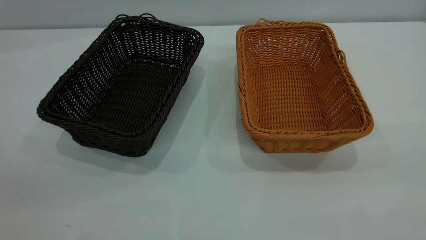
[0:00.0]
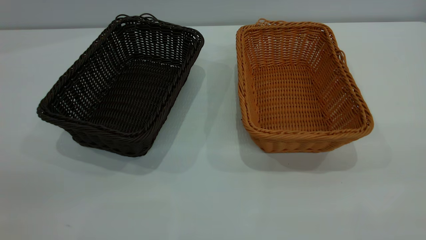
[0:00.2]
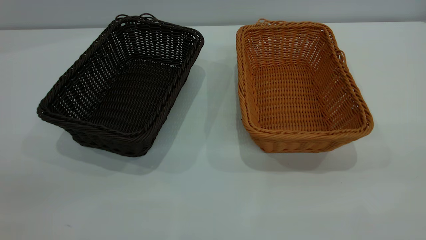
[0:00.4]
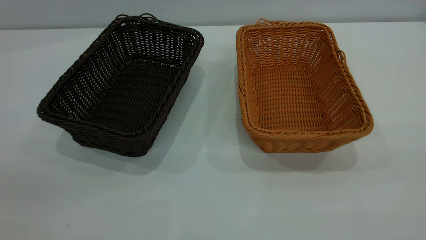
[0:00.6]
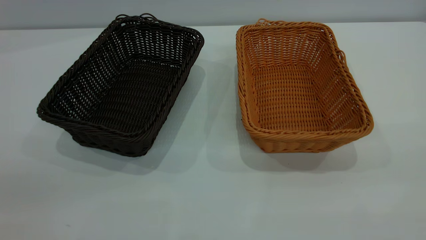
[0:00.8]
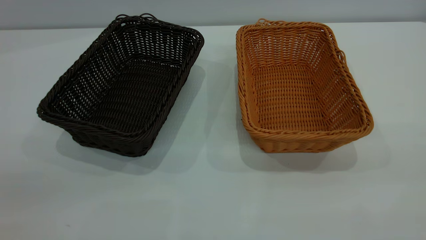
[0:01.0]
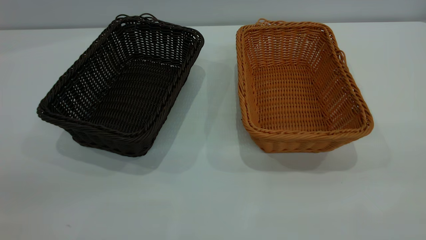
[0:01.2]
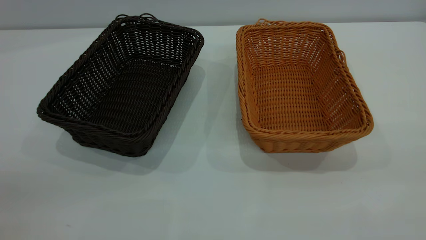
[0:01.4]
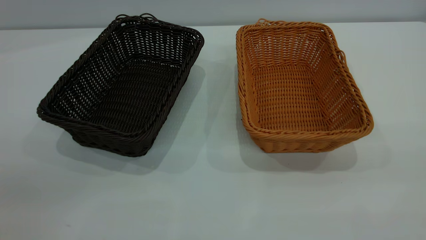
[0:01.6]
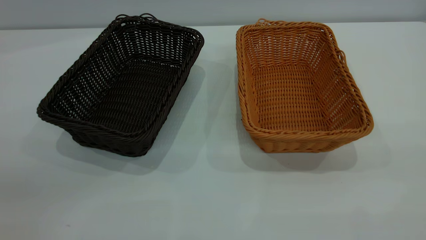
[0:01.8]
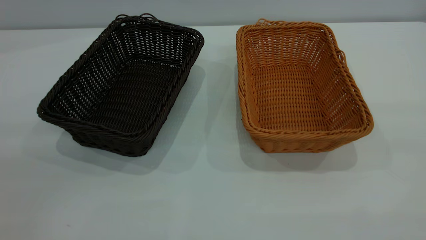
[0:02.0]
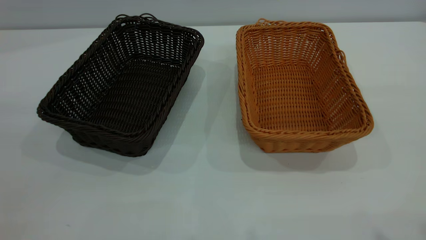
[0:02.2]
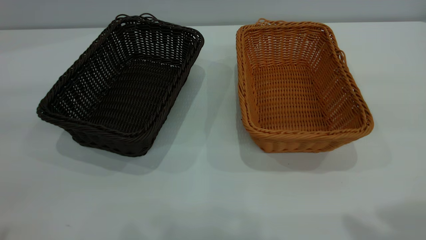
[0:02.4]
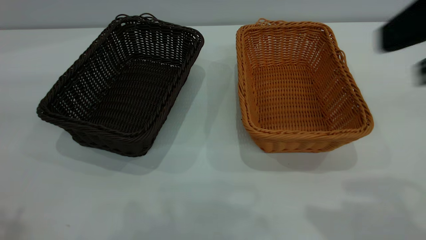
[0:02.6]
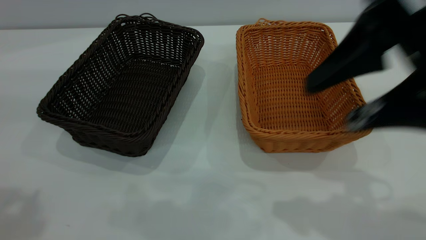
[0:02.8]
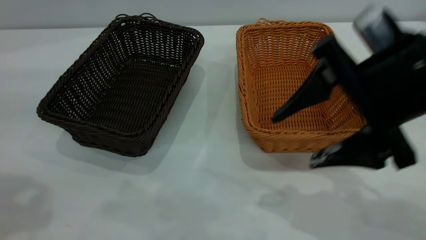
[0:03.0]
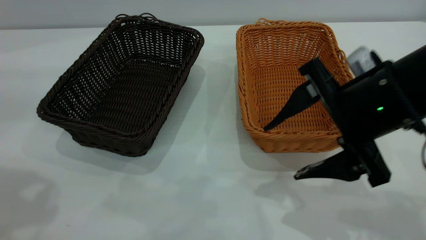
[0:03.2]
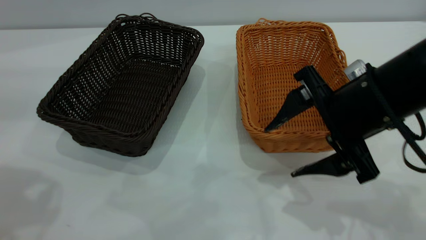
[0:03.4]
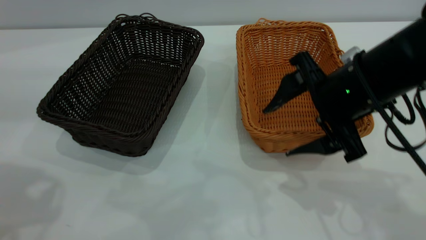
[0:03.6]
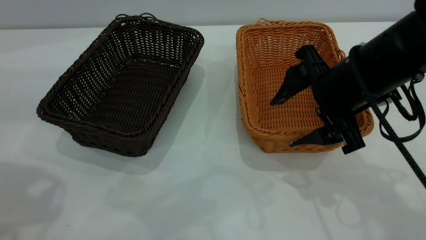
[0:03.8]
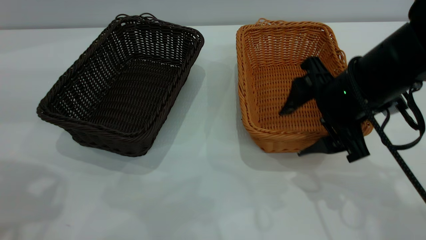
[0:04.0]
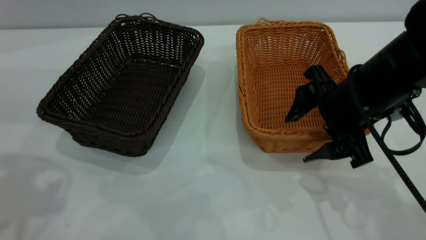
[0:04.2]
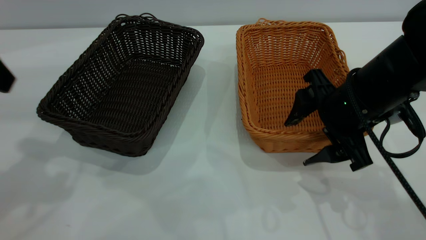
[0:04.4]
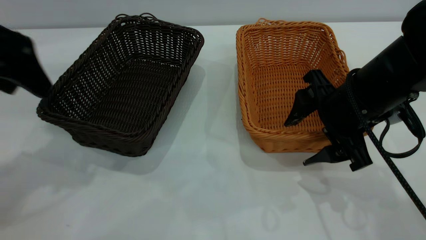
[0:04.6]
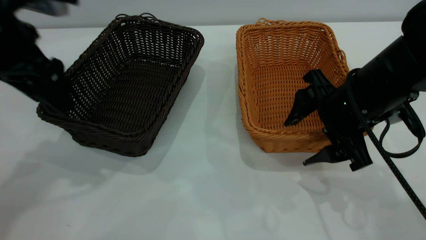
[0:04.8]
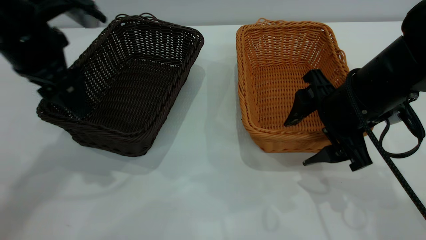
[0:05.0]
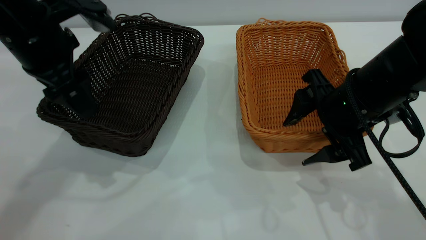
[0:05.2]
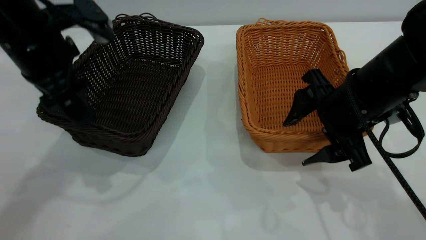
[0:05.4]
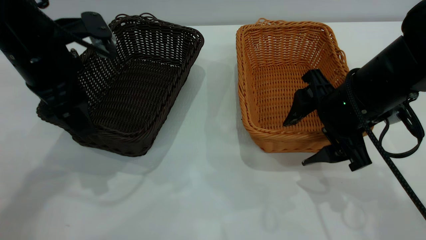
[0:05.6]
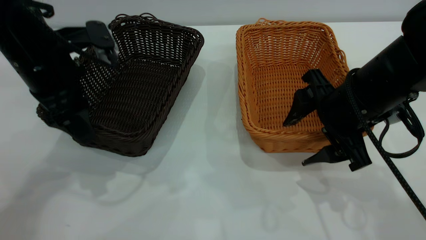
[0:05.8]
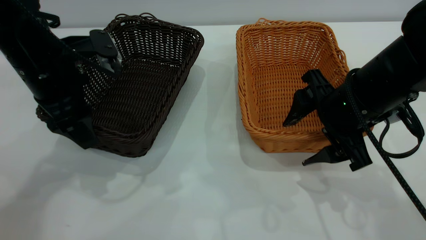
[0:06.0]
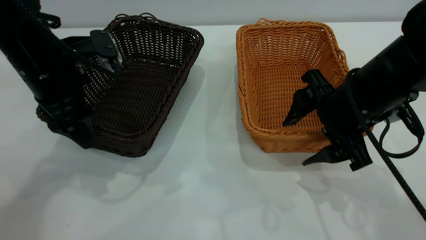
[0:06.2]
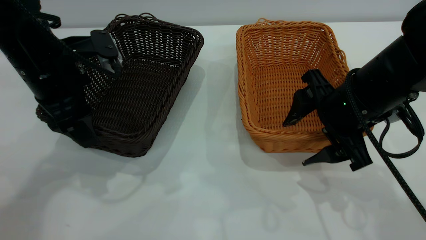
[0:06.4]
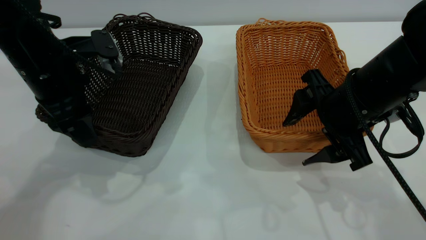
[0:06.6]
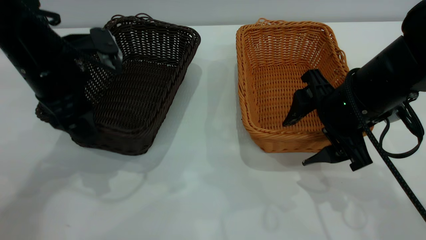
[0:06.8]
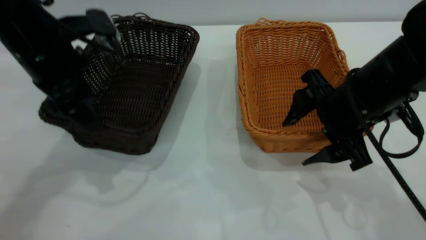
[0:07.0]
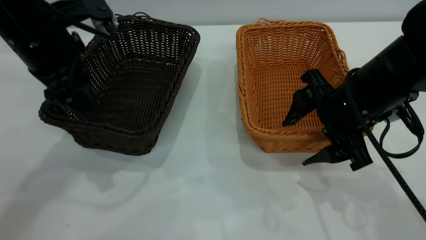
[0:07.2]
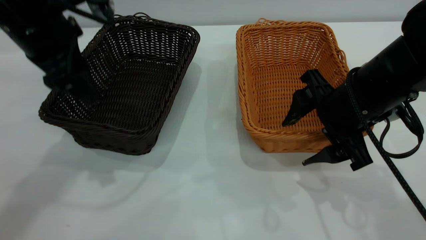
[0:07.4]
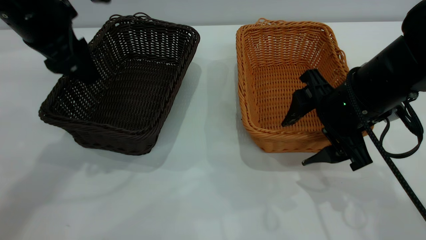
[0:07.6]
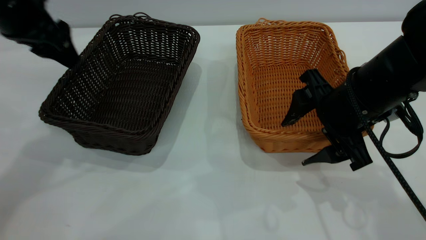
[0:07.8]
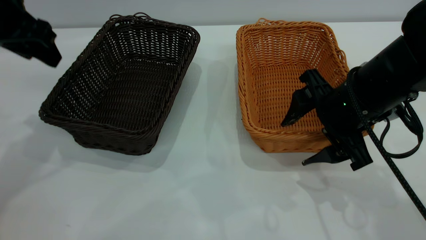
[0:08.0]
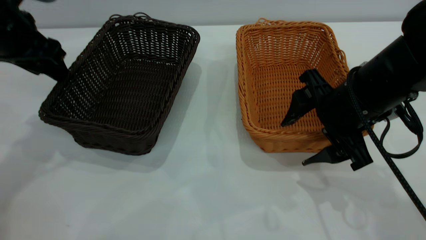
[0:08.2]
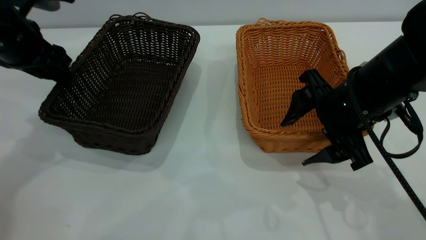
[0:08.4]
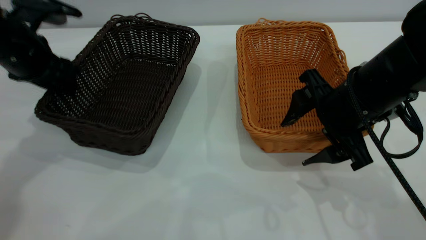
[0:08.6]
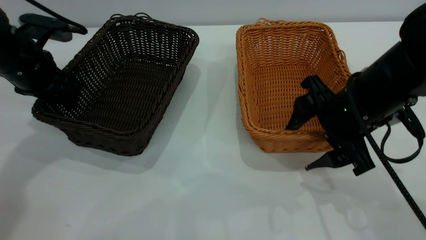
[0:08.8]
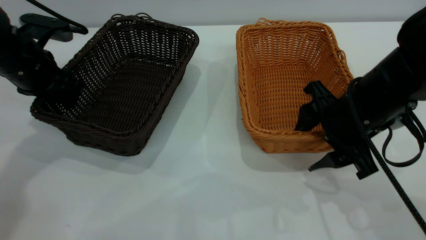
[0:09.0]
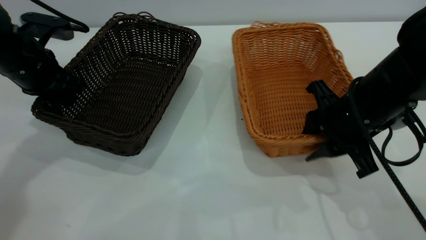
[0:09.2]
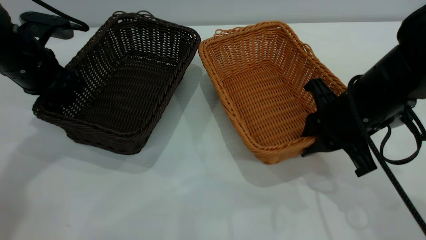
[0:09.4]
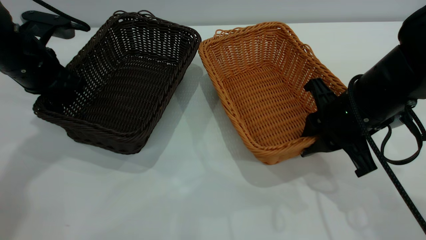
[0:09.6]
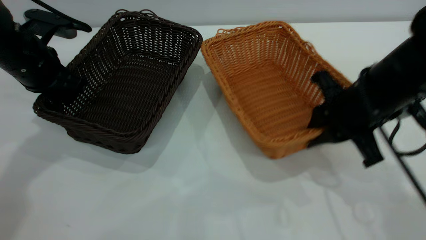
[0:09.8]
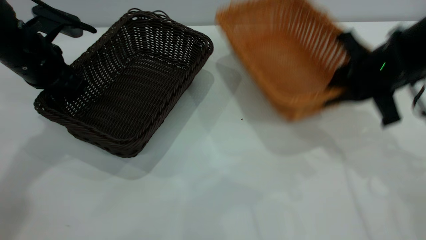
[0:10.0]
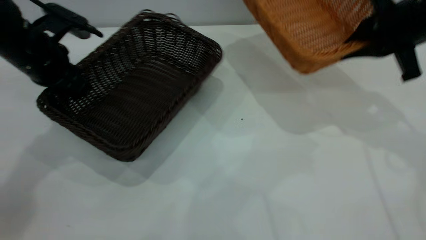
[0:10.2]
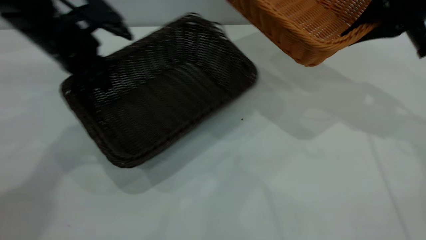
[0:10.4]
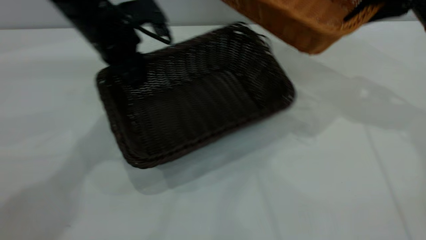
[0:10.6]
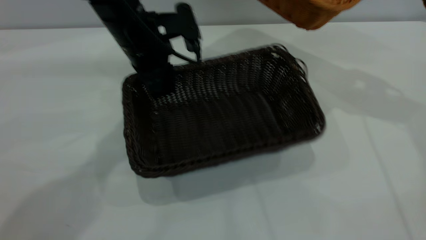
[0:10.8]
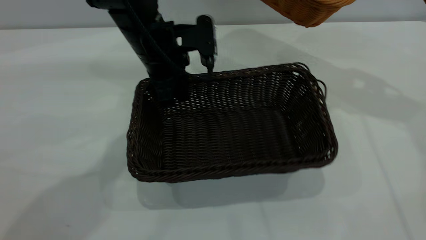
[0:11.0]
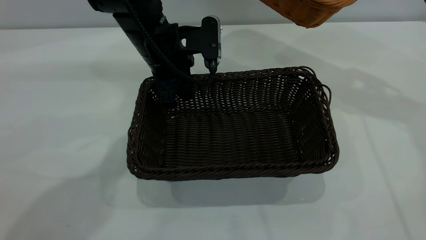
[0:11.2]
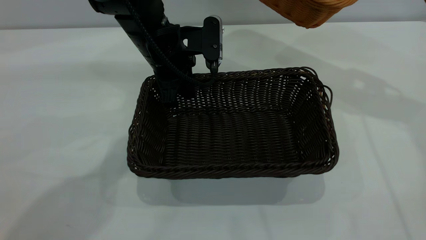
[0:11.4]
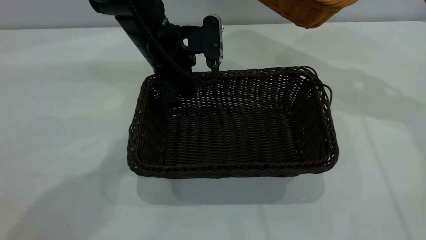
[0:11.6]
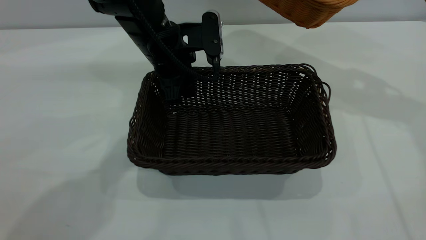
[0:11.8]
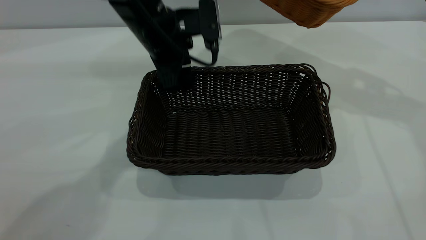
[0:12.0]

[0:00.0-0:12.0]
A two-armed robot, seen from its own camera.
Task of the whole recording: the left gripper grasp the black basket and place it in the center of the table, the right gripper grasp the brown basket and place it inside the black one.
Step, 0:00.0 to 0:09.8: Pick up the light basket with the right gripper.
0:00.0 to 0:01.6: Both grippers stay put.
0:01.6 to 0:03.0: The right gripper goes about 30 cm forward, downward and to the left.
0:03.0 to 0:04.4: The right gripper moves downward and forward, about 10 cm. The left gripper travels forward and downward by roughly 10 cm.
0:04.4 to 0:06.0: The left gripper travels downward, to the right and forward by some 15 cm.
0:06.0 to 0:07.6: The left gripper goes some 5 cm upward.
0:07.6 to 0:09.0: The left gripper travels downward and to the left by approximately 10 cm, and closes.
0:09.0 to 0:10.4: The left gripper moves to the right, some 10 cm, and closes up, while the right gripper is displaced upward, forward and to the right by about 20 cm, and closes its fingers.
0:10.4 to 0:12.0: The right gripper goes about 5 cm upward; the left gripper heads to the right, covering about 10 cm, and opens up.

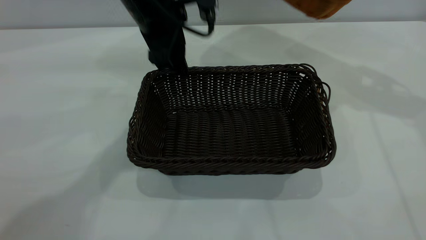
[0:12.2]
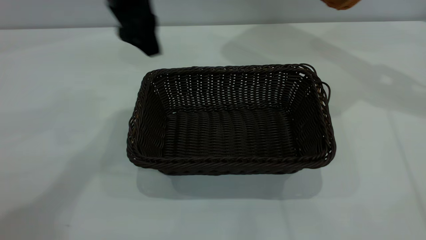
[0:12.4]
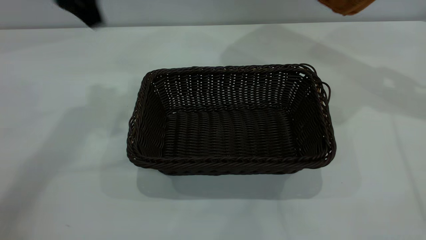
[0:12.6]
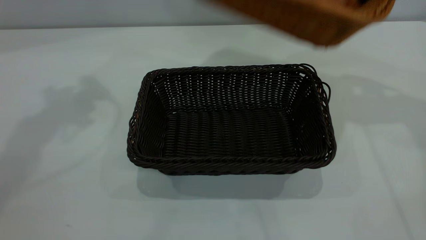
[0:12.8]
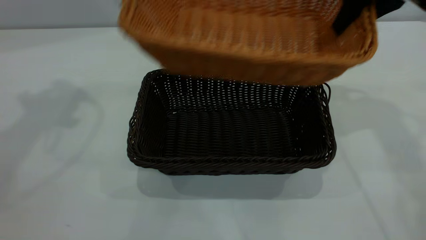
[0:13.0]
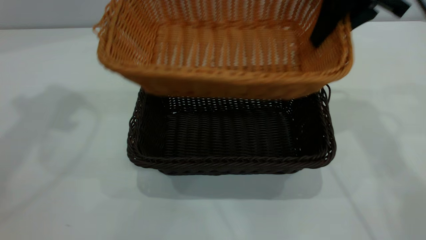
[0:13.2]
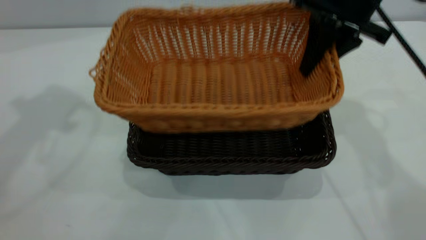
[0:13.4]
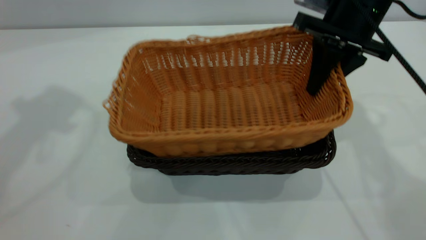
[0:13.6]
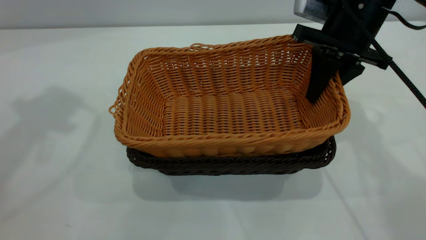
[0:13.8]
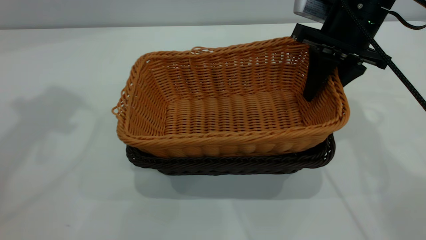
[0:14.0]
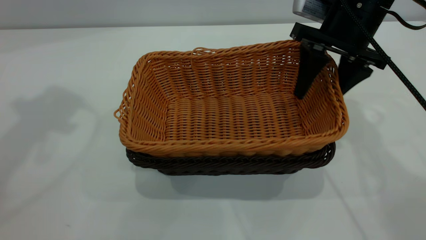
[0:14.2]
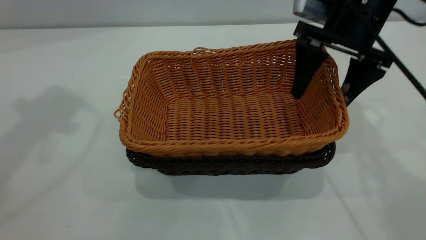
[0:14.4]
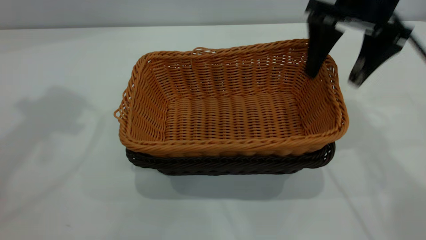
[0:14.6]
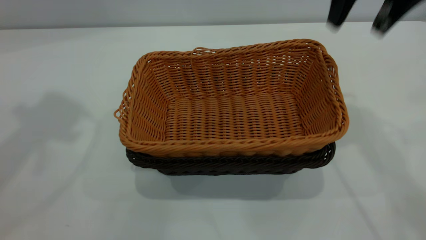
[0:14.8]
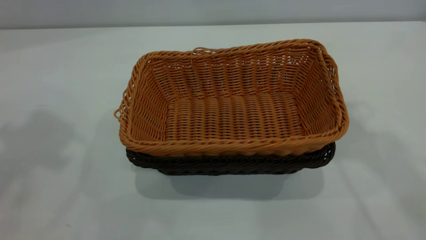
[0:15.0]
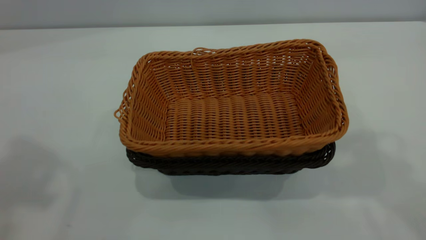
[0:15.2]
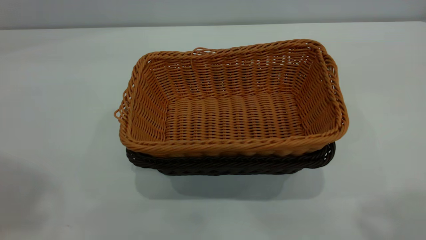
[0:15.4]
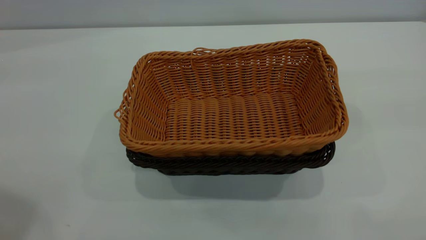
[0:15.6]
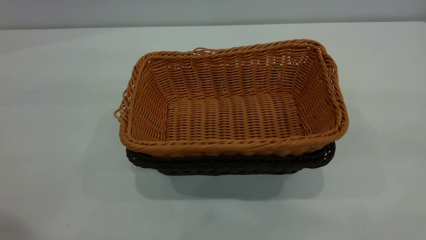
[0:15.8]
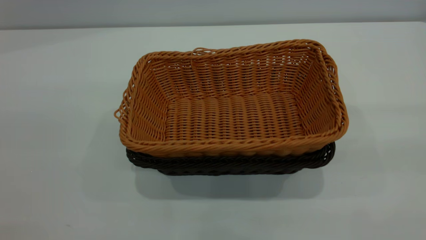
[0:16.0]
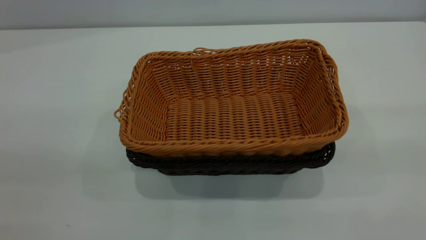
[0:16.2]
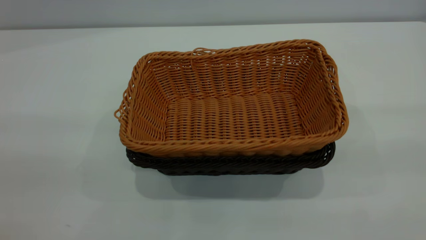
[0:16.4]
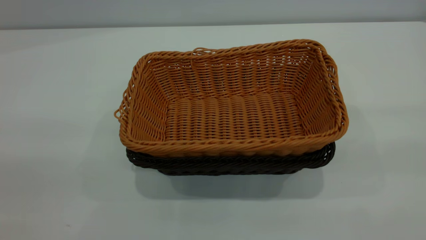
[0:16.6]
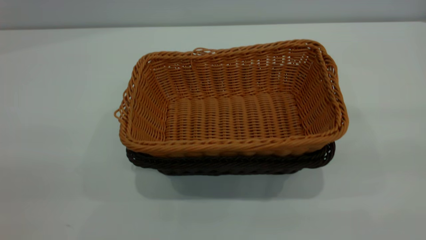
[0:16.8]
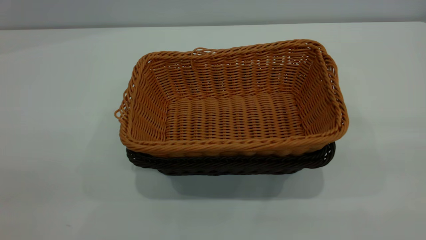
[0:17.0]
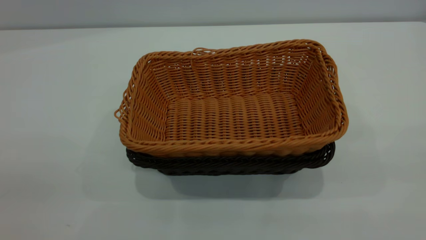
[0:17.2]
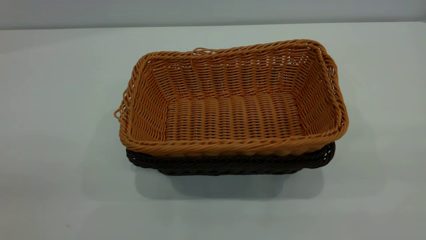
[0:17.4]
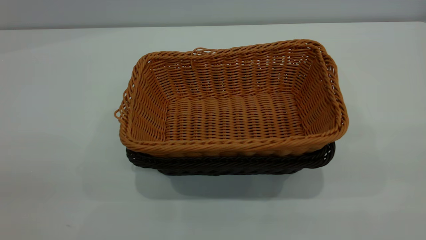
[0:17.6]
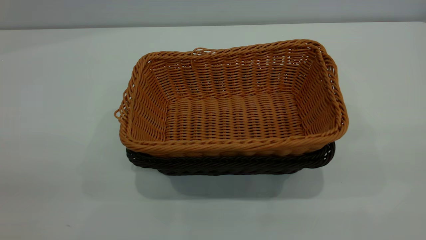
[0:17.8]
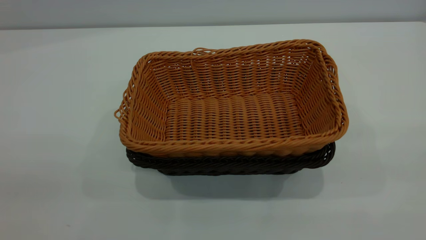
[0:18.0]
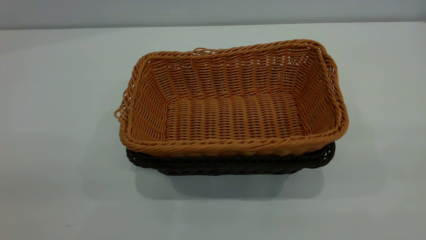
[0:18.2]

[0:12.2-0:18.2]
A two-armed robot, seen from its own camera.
Task of the whole recording: the left gripper grasp the black basket and place it in the center of the table, the right gripper grasp the brown basket and place it inside the black one.
Step, 0:12.4 to 0:14.6: Place the light basket on the dark basket.
0:12.2 to 0:13.8: The left gripper heads upward and to the left, covering roughly 30 cm, while the right gripper is displaced to the left and downward by approximately 15 cm.
0:13.8 to 0:15.2: The left gripper is displaced backward and upward by roughly 15 cm. Meanwhile the right gripper shifts about 35 cm upward and backward, and opens.
